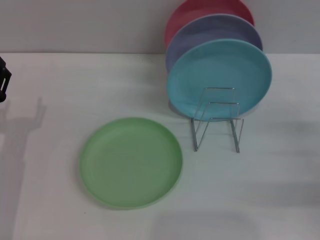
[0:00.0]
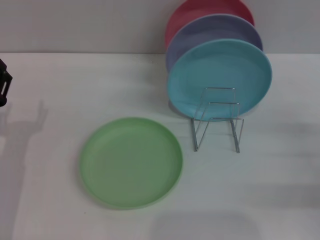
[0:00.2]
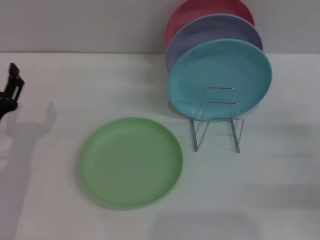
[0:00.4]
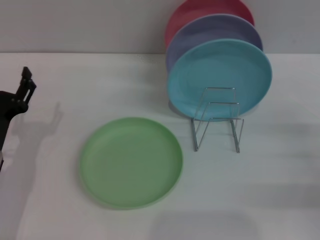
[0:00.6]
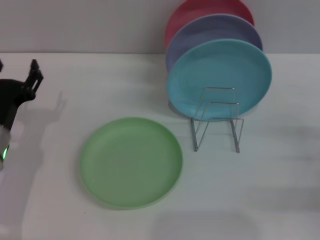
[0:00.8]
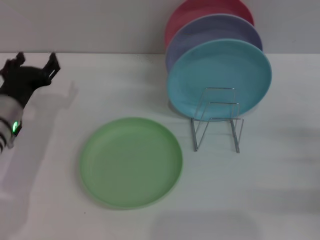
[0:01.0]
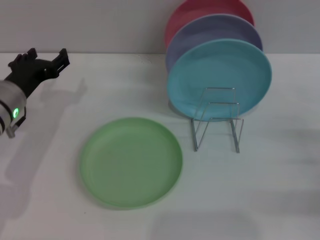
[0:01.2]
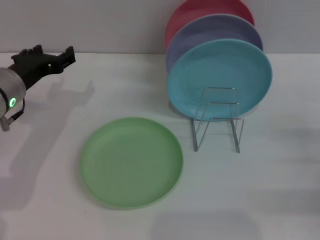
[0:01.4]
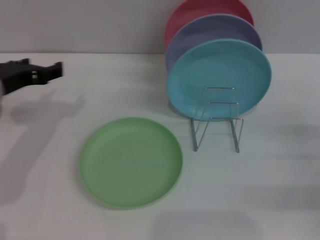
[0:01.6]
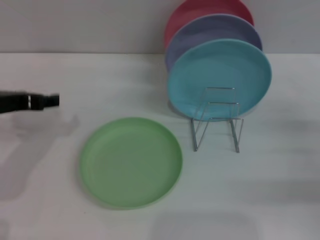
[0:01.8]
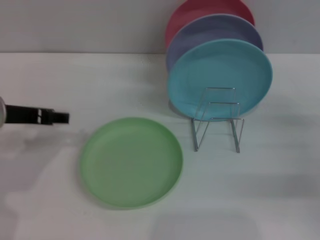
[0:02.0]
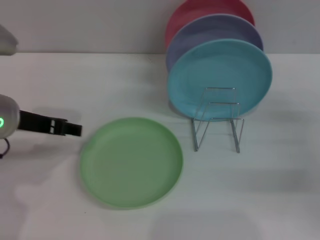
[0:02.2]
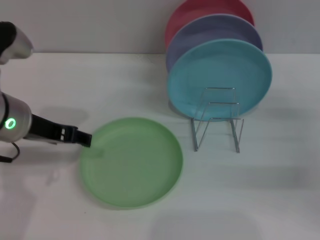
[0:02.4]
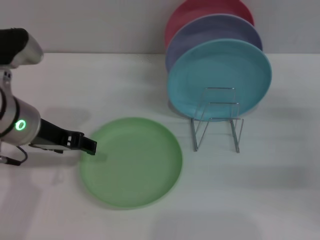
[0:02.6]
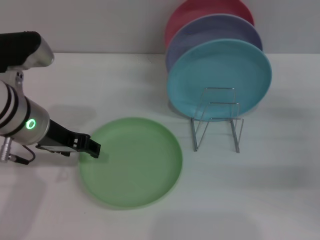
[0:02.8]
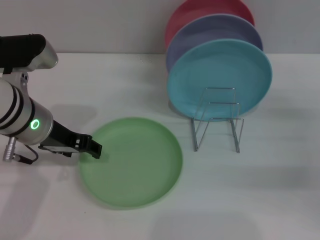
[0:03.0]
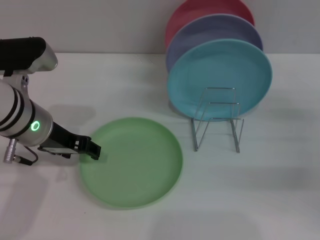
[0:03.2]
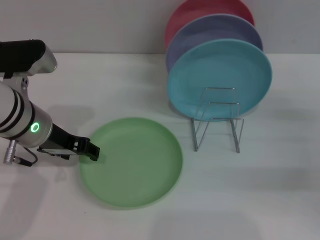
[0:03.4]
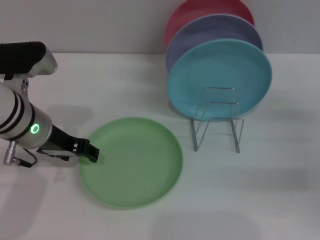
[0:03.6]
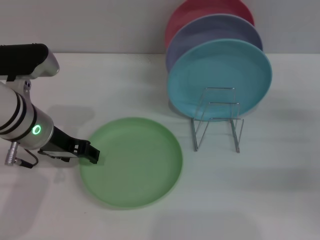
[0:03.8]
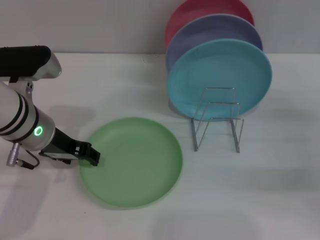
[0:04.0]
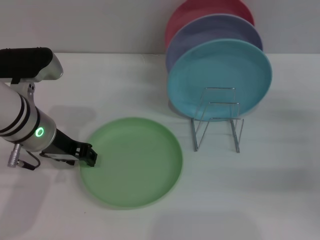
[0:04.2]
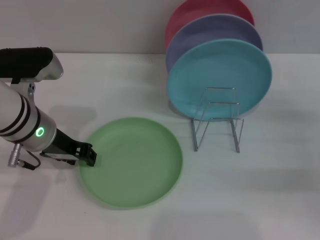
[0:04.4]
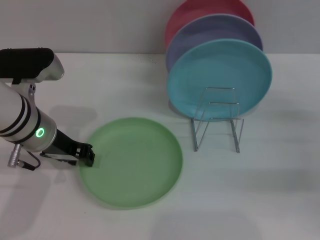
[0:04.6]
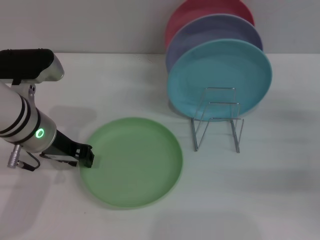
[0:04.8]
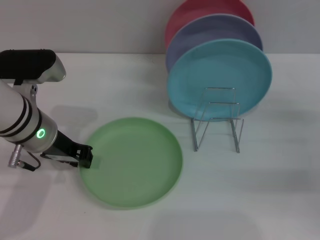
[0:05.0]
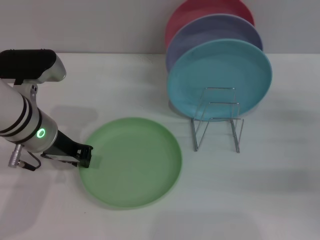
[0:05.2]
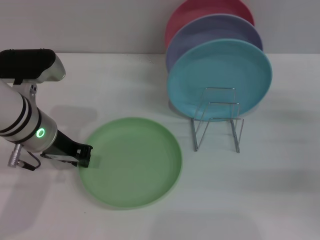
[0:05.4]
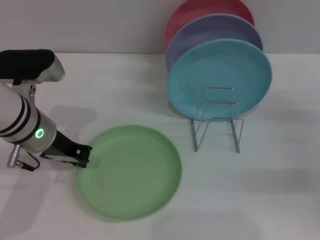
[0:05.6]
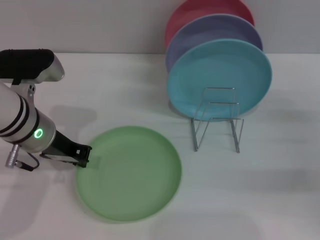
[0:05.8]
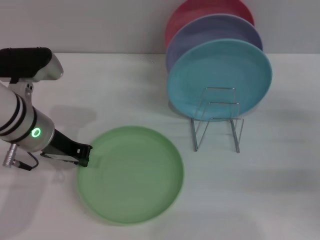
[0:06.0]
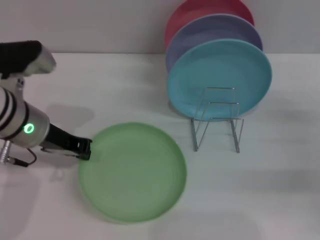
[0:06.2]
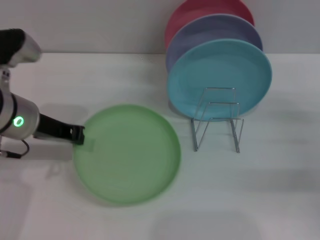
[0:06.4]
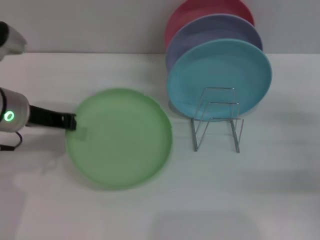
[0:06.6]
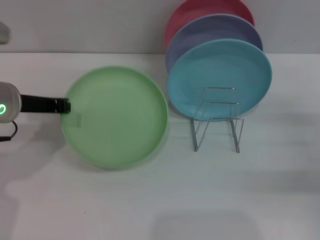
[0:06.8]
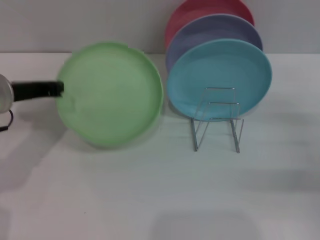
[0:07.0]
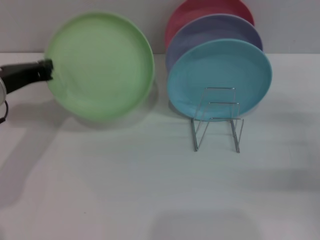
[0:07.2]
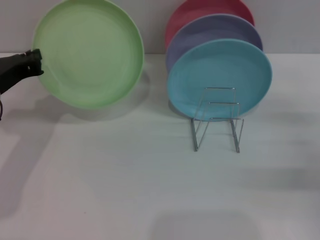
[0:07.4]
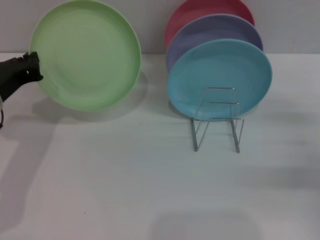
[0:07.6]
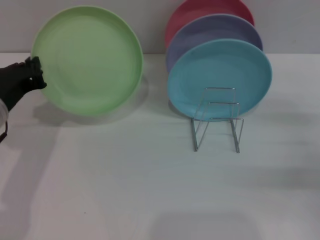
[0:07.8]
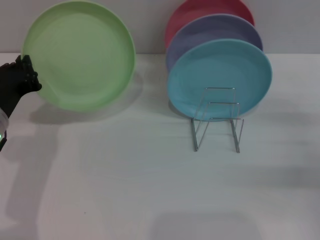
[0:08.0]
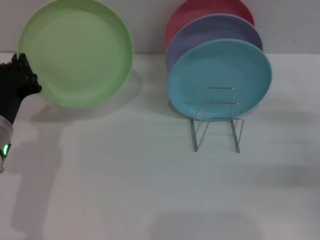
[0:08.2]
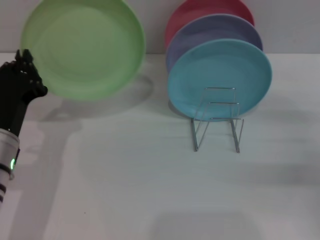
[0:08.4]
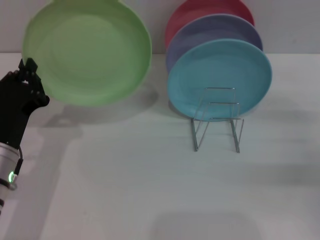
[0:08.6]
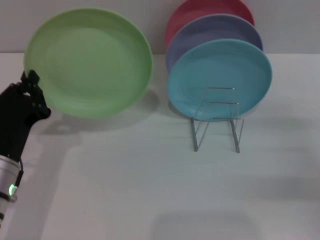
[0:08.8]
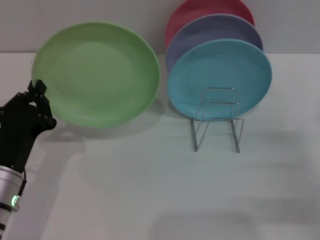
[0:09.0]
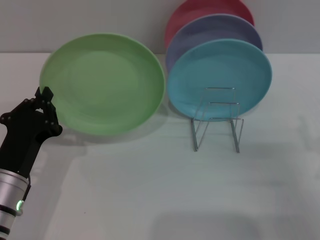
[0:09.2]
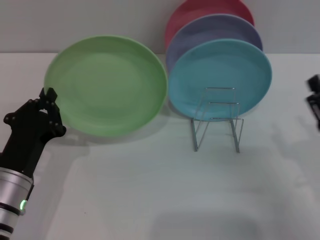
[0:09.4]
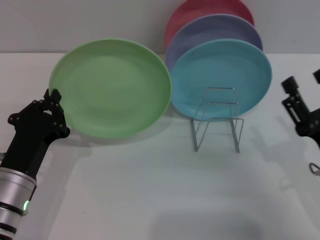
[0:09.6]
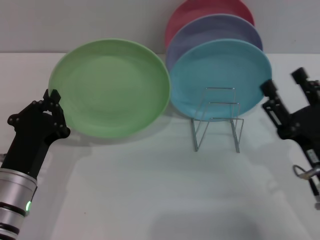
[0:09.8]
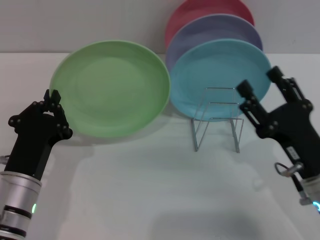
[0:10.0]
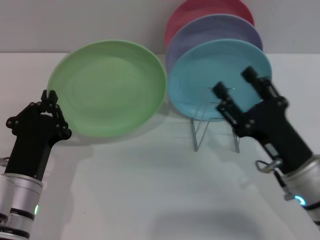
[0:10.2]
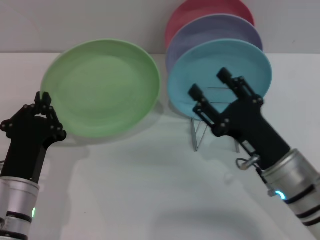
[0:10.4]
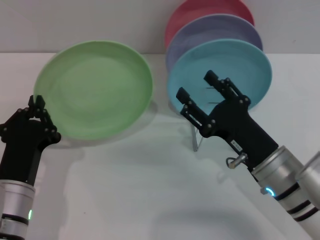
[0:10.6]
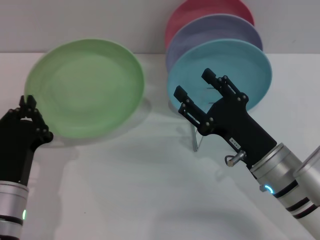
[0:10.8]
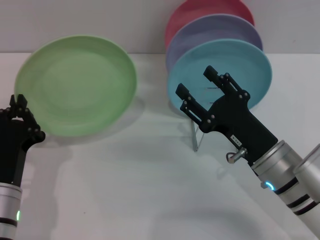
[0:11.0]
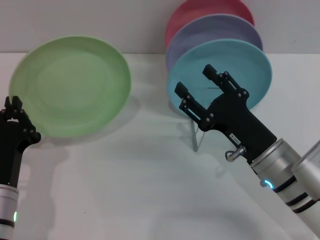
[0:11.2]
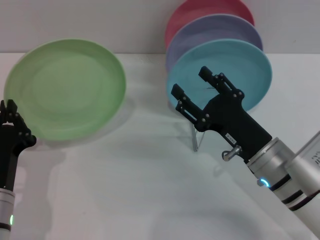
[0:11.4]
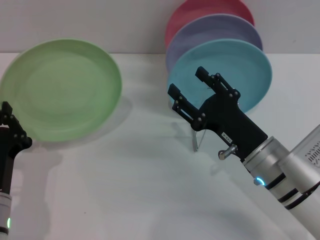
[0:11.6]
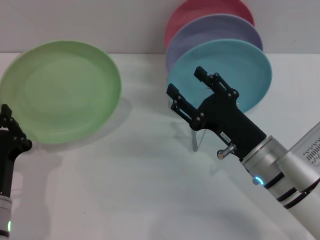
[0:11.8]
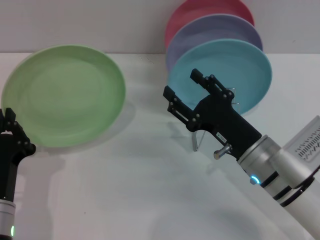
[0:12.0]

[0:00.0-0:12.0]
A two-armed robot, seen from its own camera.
Task of the whole recording: Grip the plate with one hand, pass it to the other, then set it on the shelf.
Step, 0:00.0 to 0:07.6: Pick up the plate with the left gripper.
0:00.0 to 0:01.6: The left gripper goes roughly 15 cm upward and forward.
0:01.6 to 0:03.0: The left gripper shifts roughly 5 cm to the right.
0:03.0 to 0:04.4: The grippers stay close to where they were, moving slightly.
0:04.4 to 0:06.0: The left gripper closes up.
0:06.0 to 0:07.6: The left gripper heads to the left, covering approximately 5 cm.
0:07.6 to 0:09.0: The left gripper moves backward and downward, roughly 10 cm, while the right gripper changes place by approximately 5 cm.
0:09.0 to 0:10.4: The right gripper heads to the left, covering roughly 15 cm.

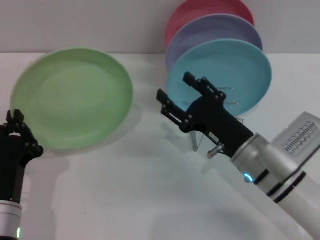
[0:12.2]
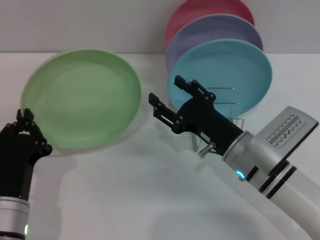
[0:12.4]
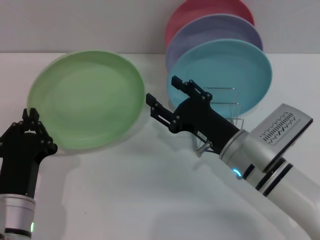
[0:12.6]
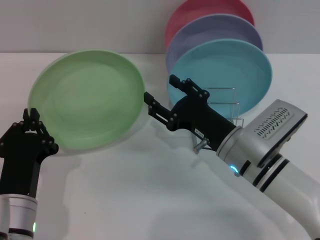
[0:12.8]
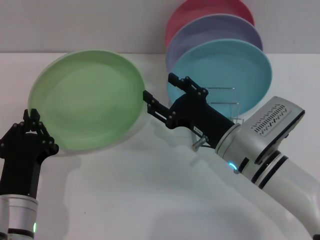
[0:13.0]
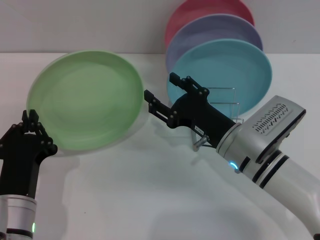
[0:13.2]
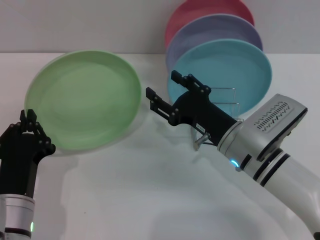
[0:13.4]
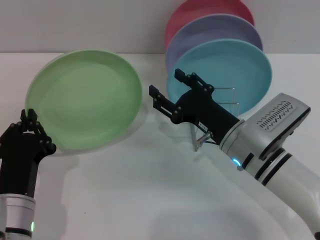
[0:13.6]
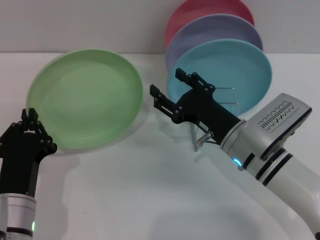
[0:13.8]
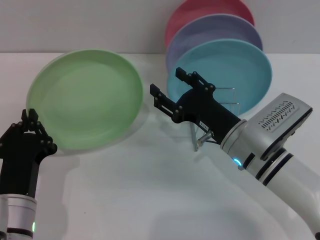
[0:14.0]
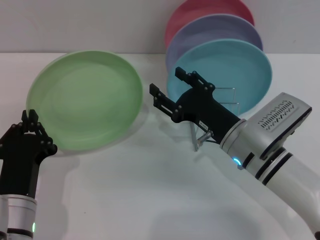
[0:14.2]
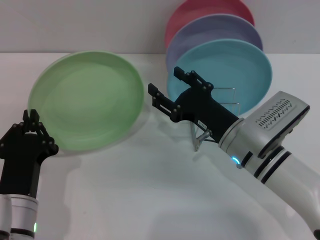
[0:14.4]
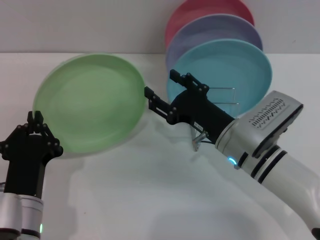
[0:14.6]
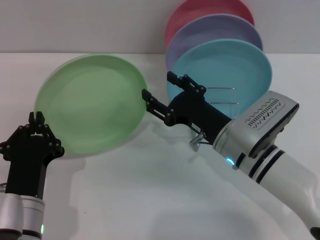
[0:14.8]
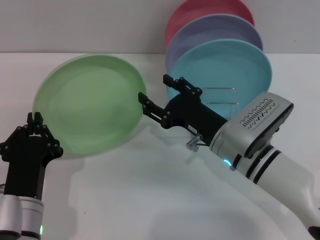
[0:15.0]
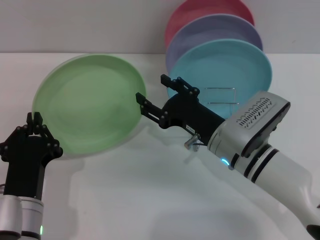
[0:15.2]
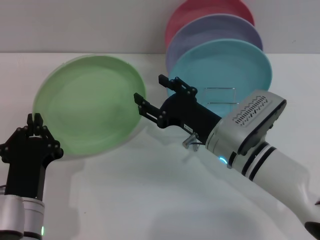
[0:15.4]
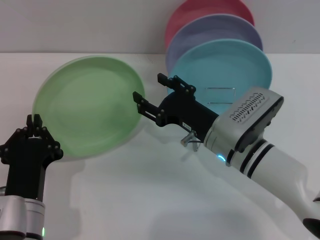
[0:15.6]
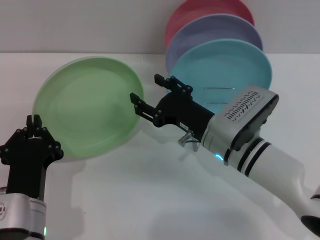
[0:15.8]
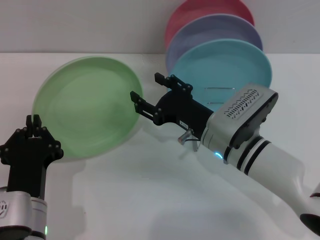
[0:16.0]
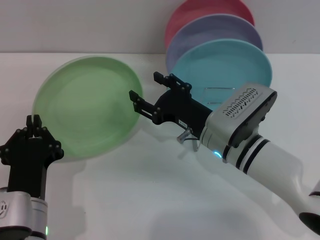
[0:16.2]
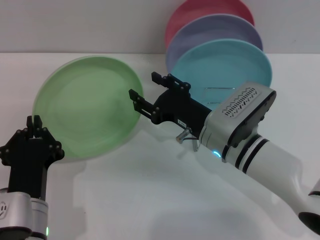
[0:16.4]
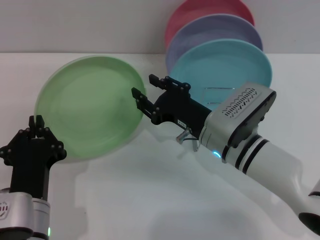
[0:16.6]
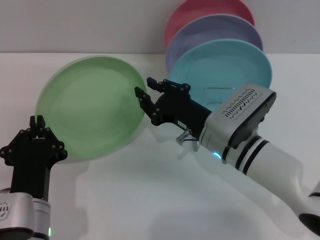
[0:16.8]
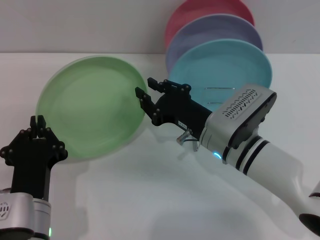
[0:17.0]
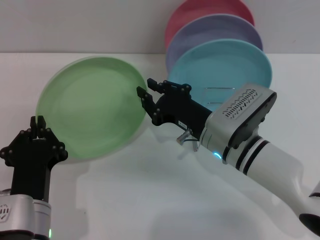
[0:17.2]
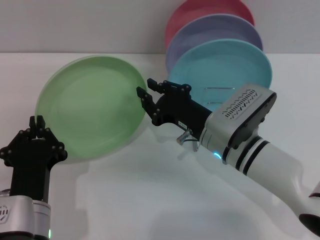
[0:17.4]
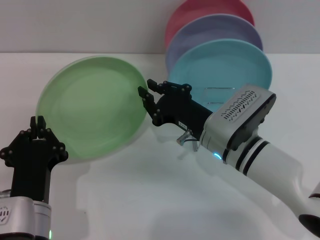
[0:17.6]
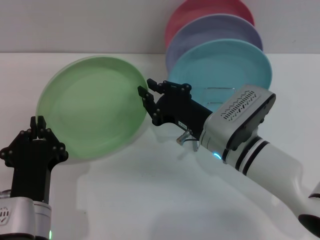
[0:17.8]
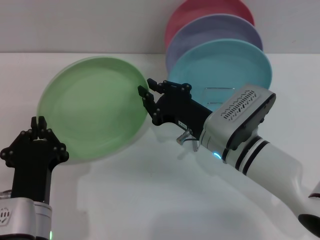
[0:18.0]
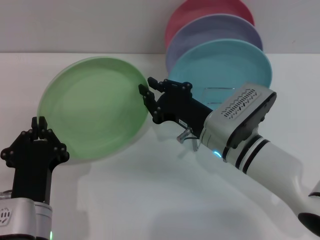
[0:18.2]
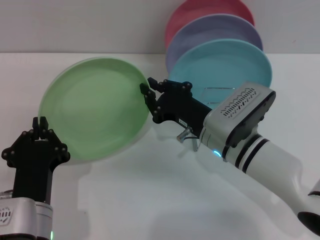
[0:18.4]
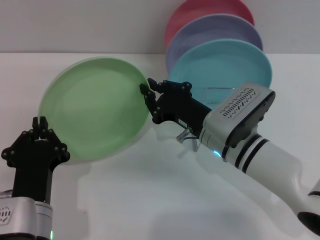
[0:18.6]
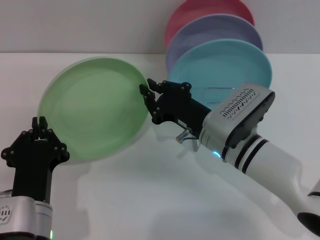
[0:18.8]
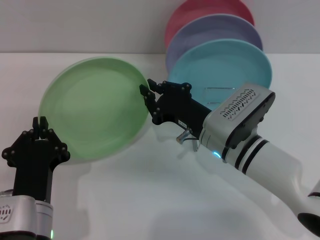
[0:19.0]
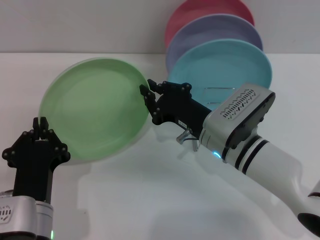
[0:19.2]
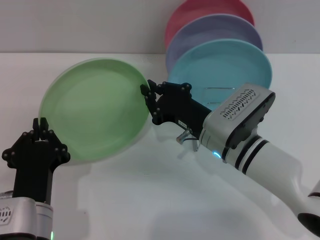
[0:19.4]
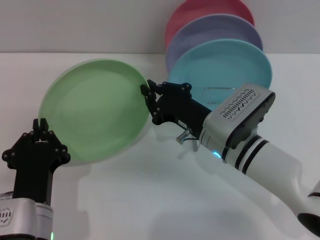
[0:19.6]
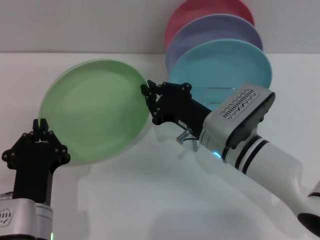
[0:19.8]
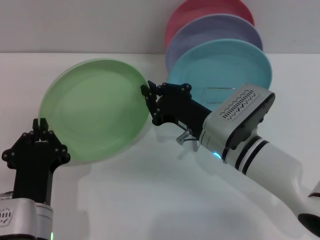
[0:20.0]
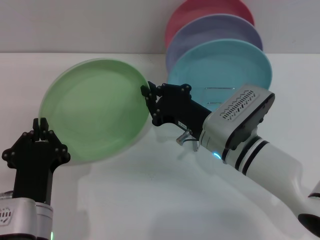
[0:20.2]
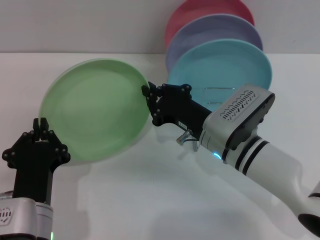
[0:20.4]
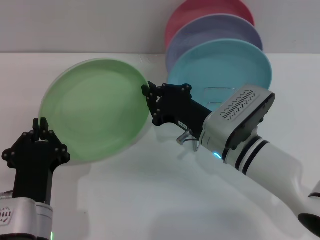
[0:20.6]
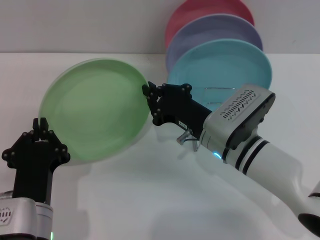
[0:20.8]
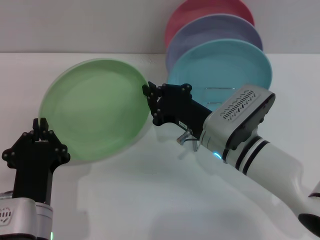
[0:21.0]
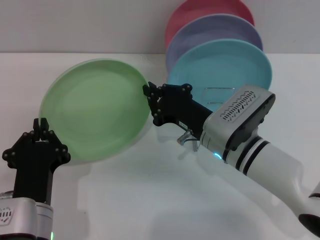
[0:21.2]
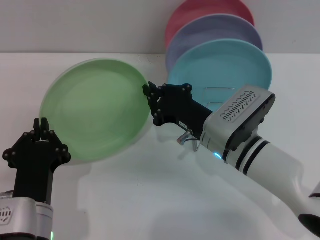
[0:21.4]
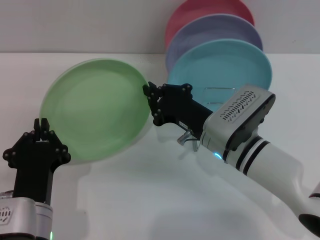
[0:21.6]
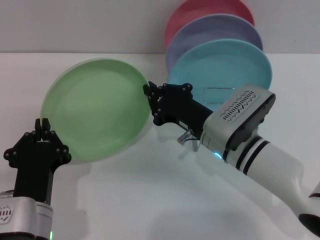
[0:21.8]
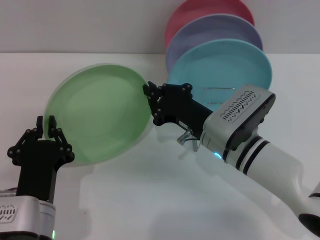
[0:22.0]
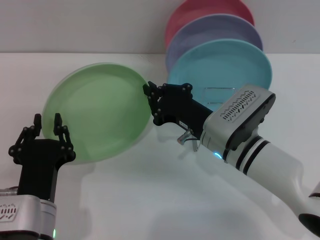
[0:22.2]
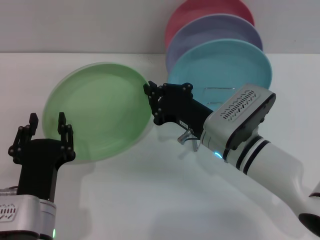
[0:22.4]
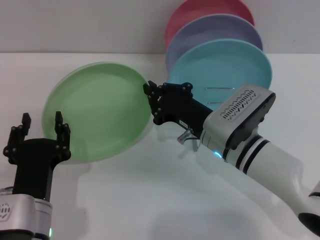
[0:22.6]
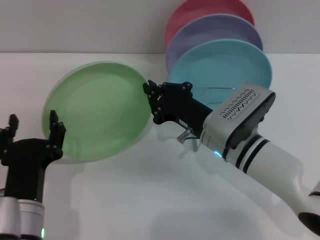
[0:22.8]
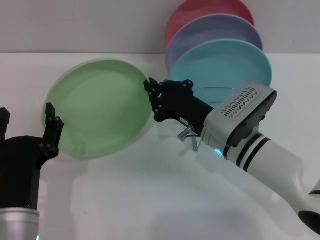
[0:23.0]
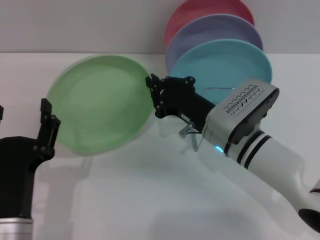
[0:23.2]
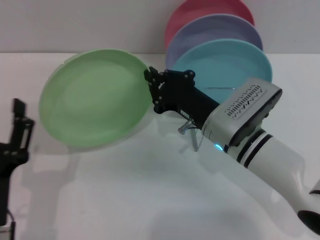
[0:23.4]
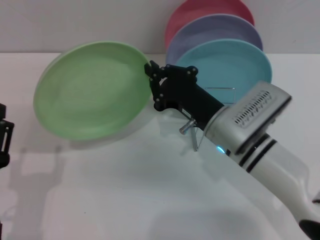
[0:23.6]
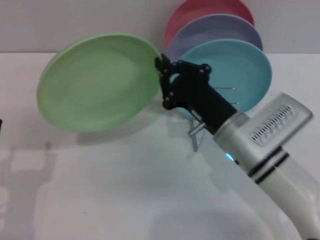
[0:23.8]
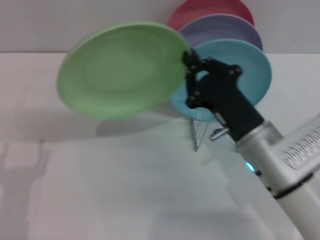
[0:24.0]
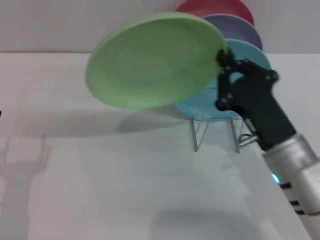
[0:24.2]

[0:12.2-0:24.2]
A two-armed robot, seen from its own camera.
Task of the whole recording: Grip the plate with one hand, pass it to the other, then set it on the shelf.
Step, 0:12.2 to 0:23.4: Pass the plate from the left gripper to the right gripper.
0:12.2 to 0:16.6: The grippers stay close to where they were, moving slightly.
0:16.6 to 0:18.2: The right gripper closes its fingers.
0:18.2 to 0:21.2: Both grippers stay about where they are.
0:21.2 to 0:22.6: The left gripper opens.
0:22.6 to 0:24.2: The left gripper is displaced to the left by some 10 cm, and opens; the right gripper shifts approximately 10 cm backward and to the right.
